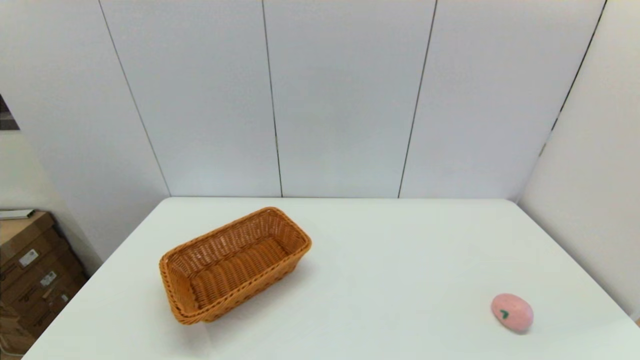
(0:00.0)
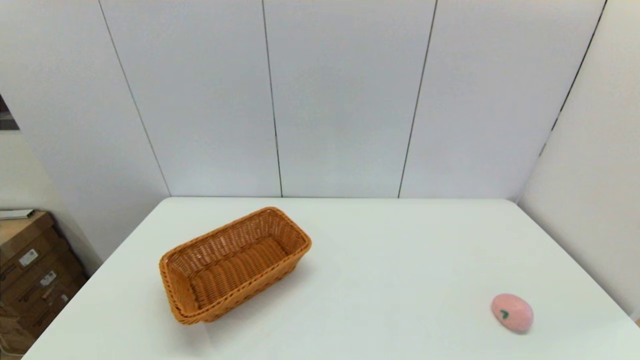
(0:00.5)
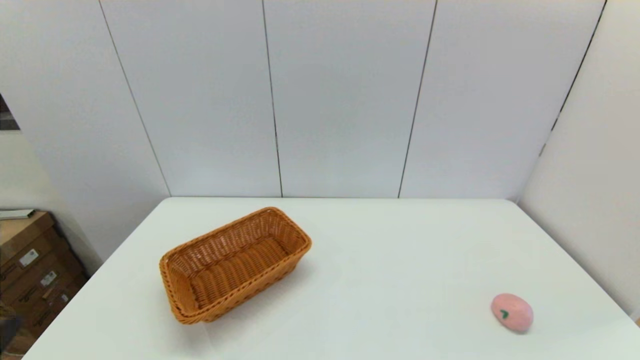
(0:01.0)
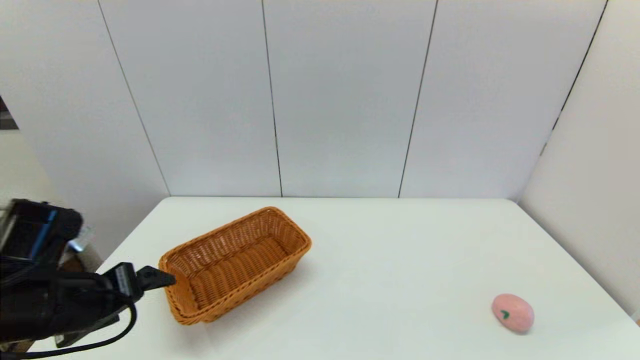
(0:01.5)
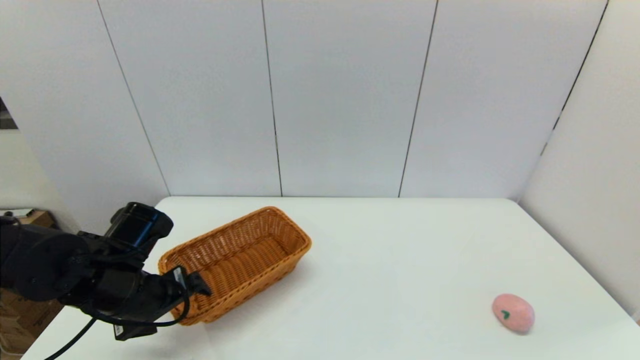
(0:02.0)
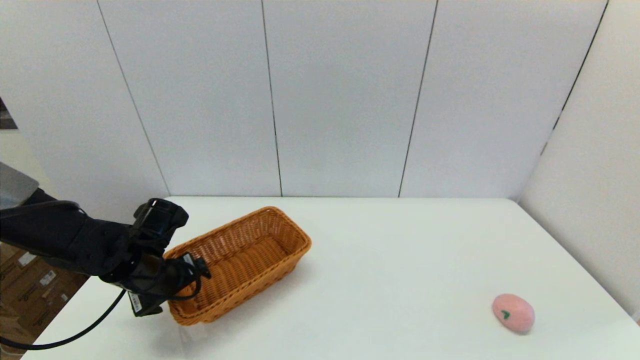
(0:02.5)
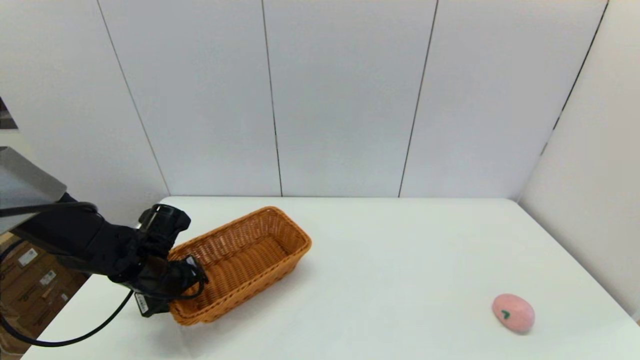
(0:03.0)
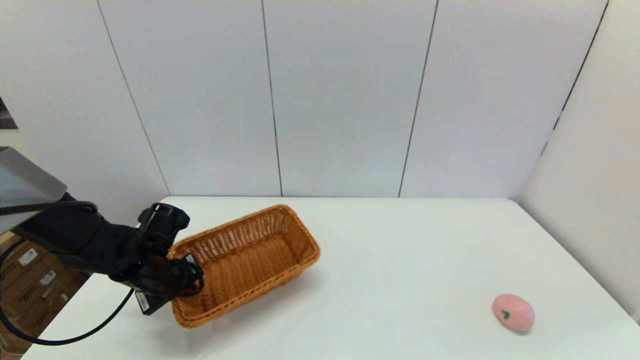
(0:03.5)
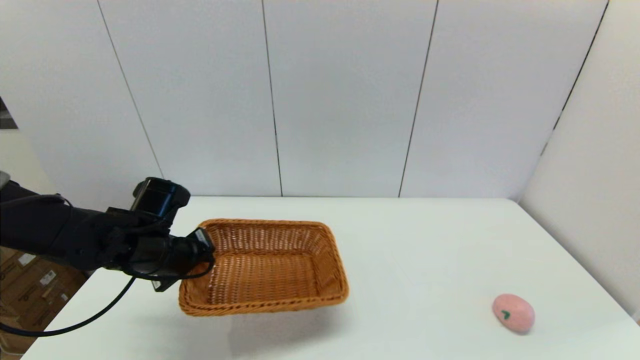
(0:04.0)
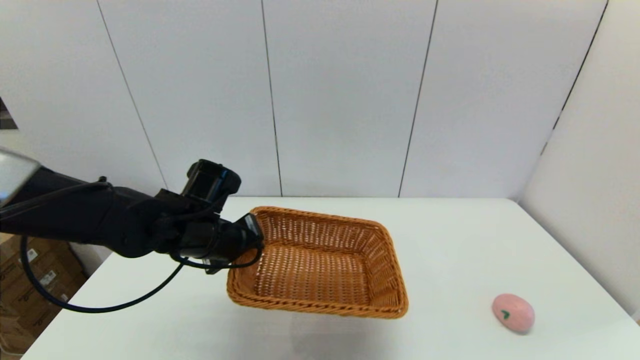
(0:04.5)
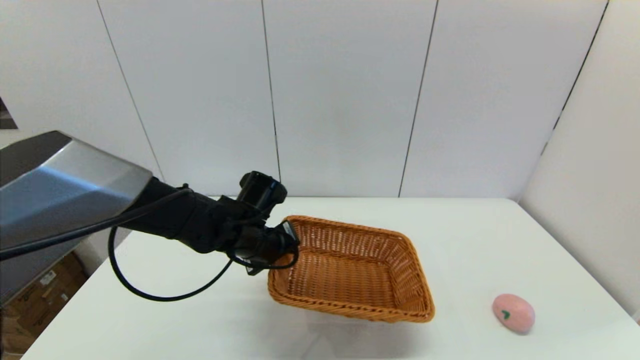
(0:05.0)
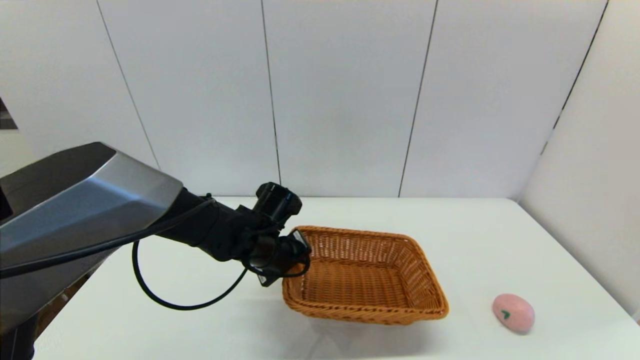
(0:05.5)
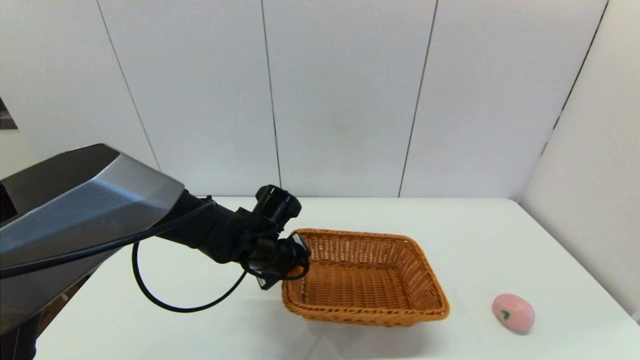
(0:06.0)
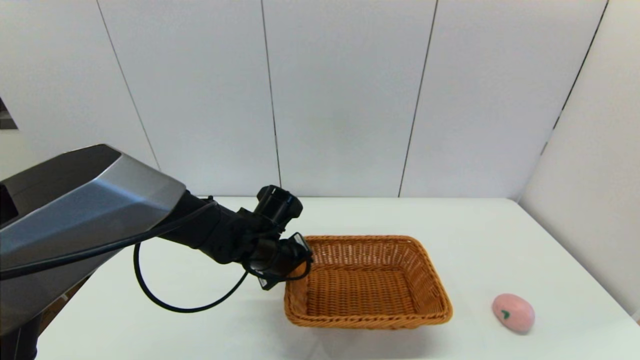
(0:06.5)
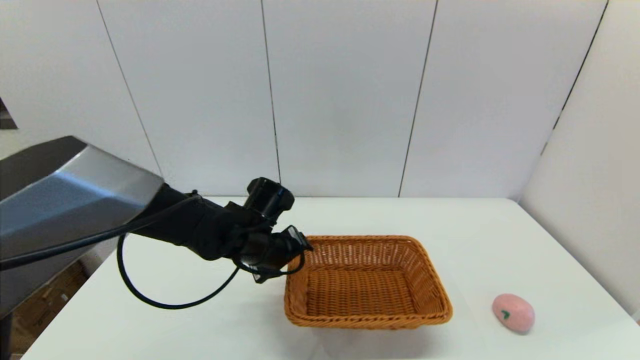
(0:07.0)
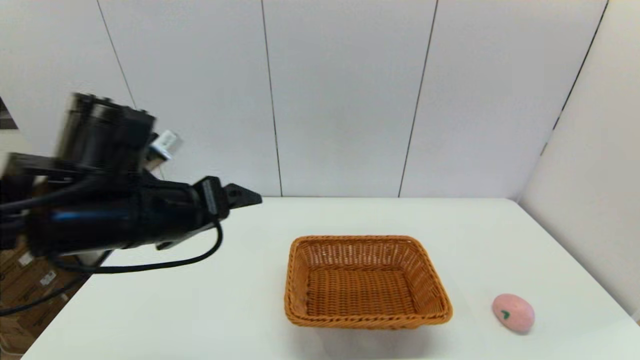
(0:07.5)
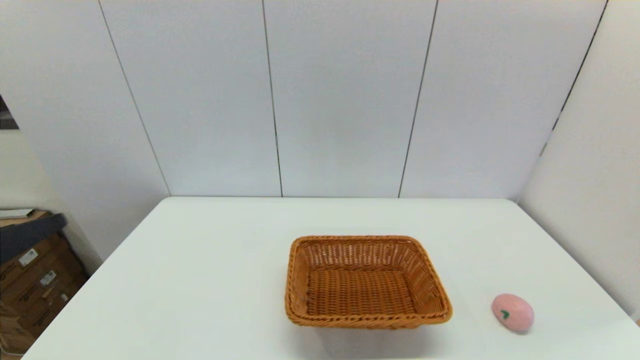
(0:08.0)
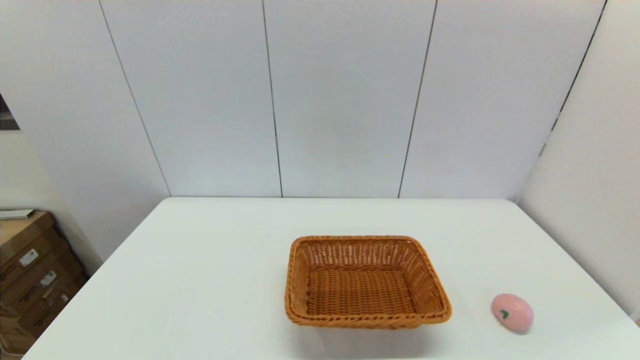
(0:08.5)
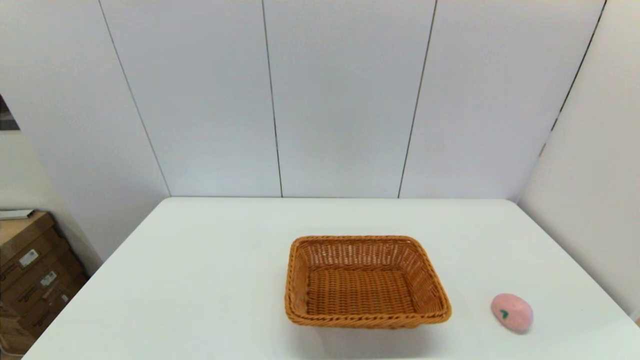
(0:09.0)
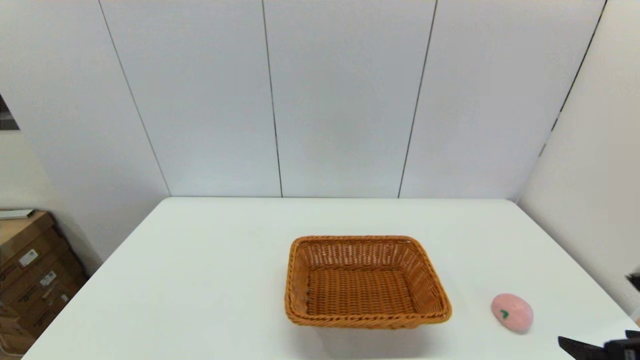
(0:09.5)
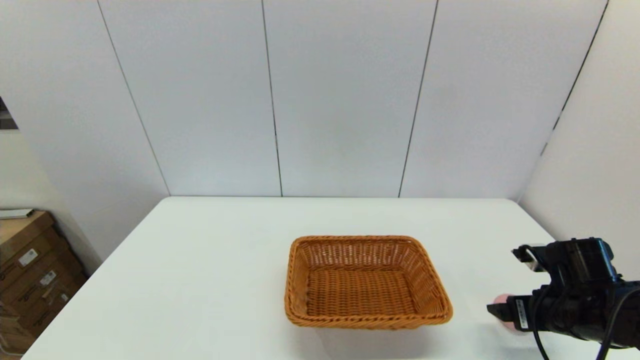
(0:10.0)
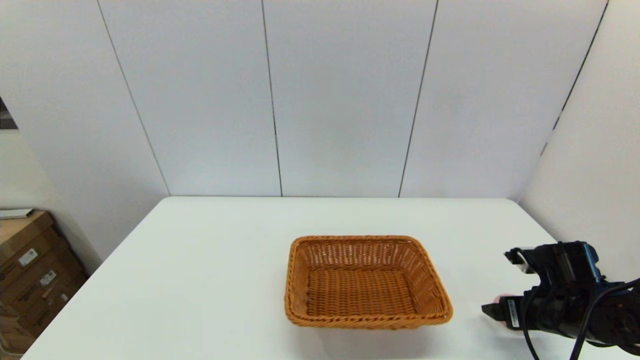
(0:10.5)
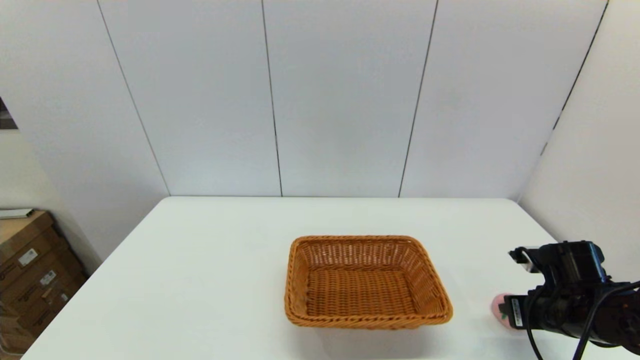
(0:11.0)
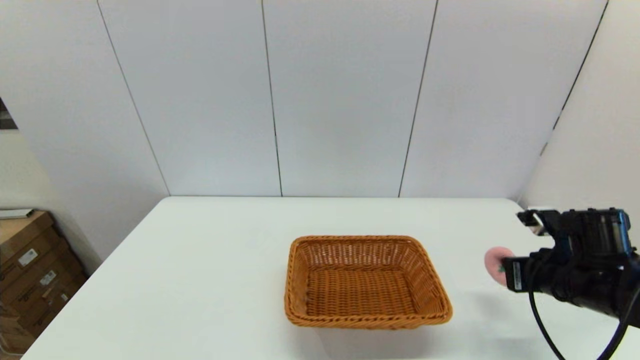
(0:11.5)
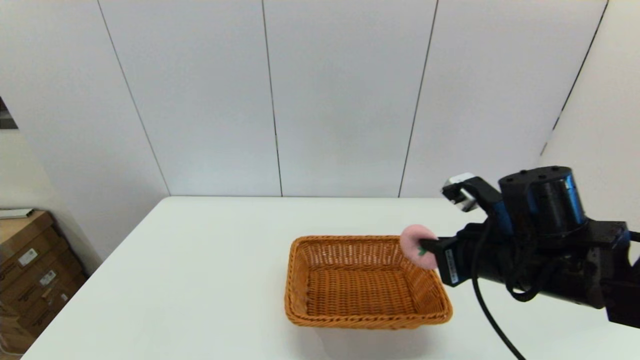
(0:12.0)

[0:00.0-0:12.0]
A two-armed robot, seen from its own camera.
Step, 0:00.0 to 0:03.5: Grasp the light basket with the left gripper.
Step, 0:04.0 to 0:06.5: Place the light basket on the middle of the table with the left gripper.
Step, 0:07.0 to 0:11.0: Grasp the peach with the right gripper.
0:00.0 to 0:02.0: The left gripper is displaced forward by some 25 cm.
0:02.0 to 0:04.0: The left gripper goes some 5 cm forward, and closes.
0:04.0 to 0:06.0: The left gripper is displaced to the right by roughly 15 cm.
0:06.0 to 0:08.0: The left gripper heads backward, to the left and upward, covering some 40 cm, and opens.
0:08.0 to 0:10.0: The right gripper heads forward, covering some 25 cm.
0:10.0 to 0:12.0: The right gripper travels to the left and upward by approximately 20 cm, and closes up.

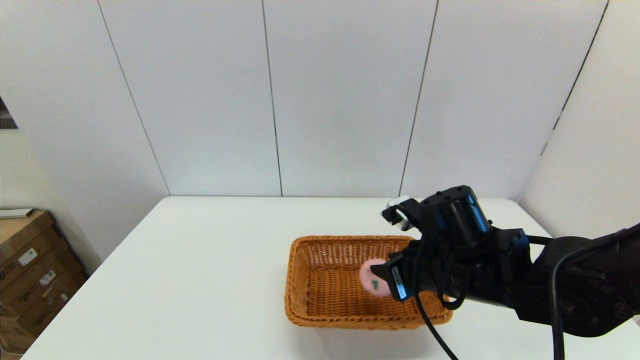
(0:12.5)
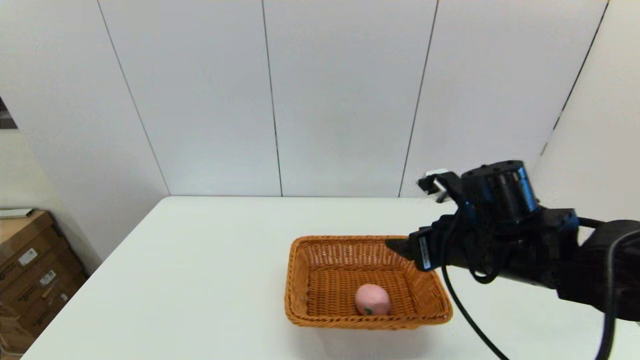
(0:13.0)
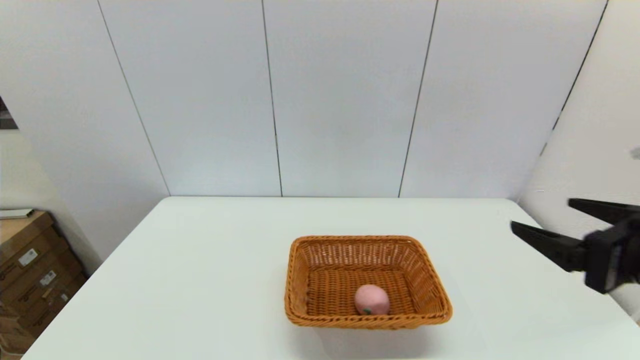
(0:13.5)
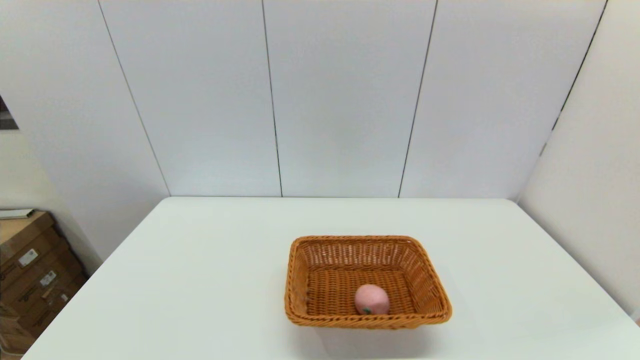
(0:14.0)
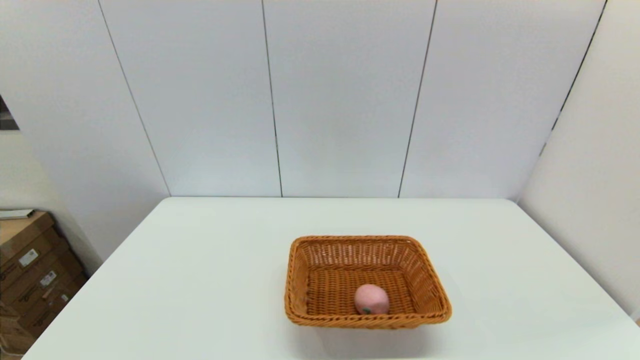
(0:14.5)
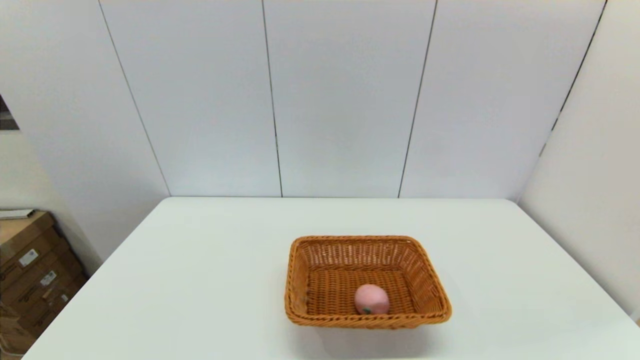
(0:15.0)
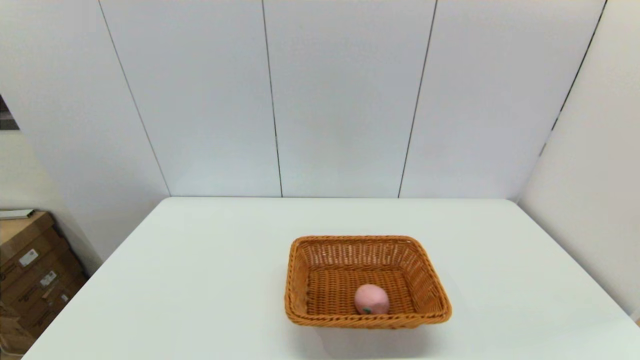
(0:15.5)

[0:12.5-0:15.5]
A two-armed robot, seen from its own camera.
0:12.5 to 0:14.0: The right gripper heads backward and to the right, covering roughly 30 cm, and opens.

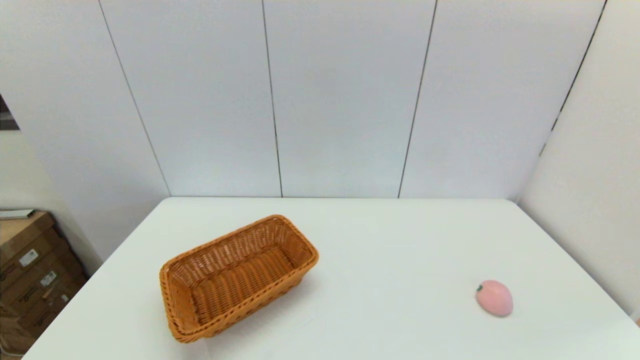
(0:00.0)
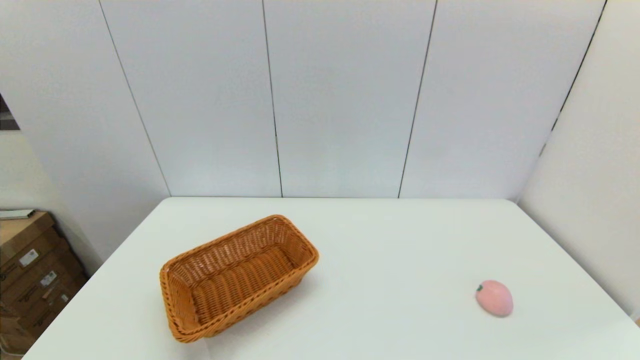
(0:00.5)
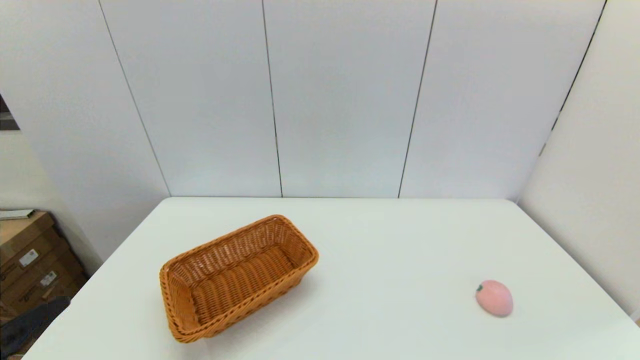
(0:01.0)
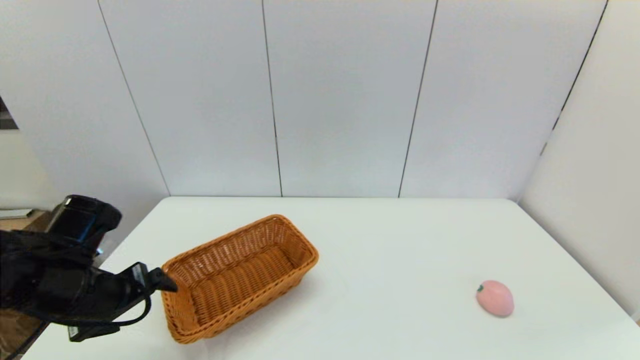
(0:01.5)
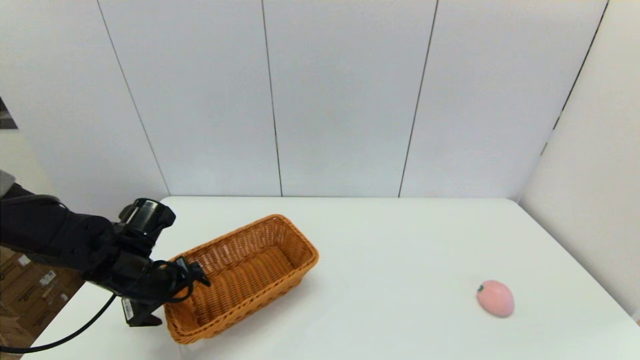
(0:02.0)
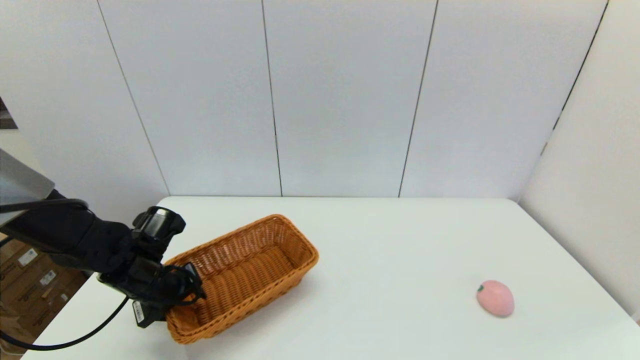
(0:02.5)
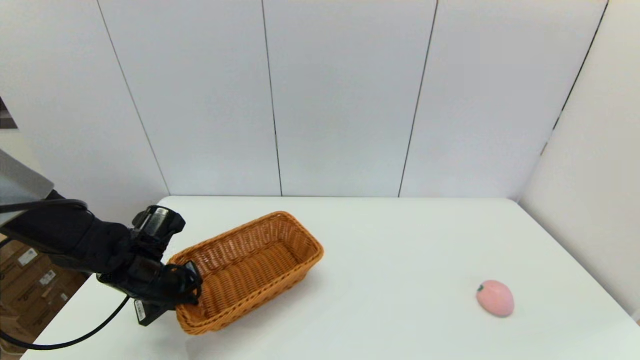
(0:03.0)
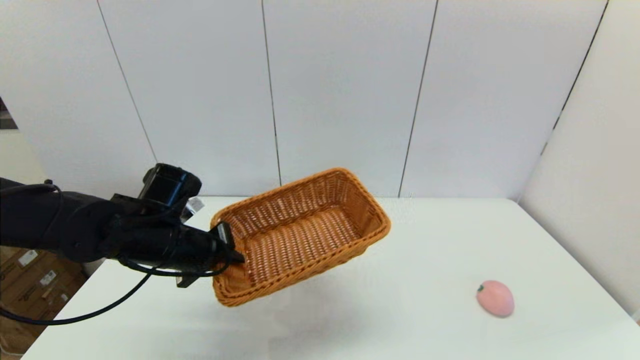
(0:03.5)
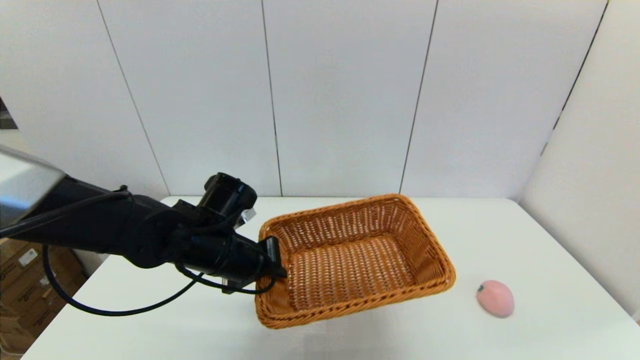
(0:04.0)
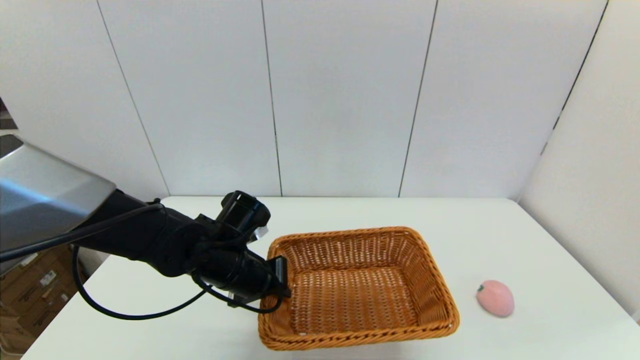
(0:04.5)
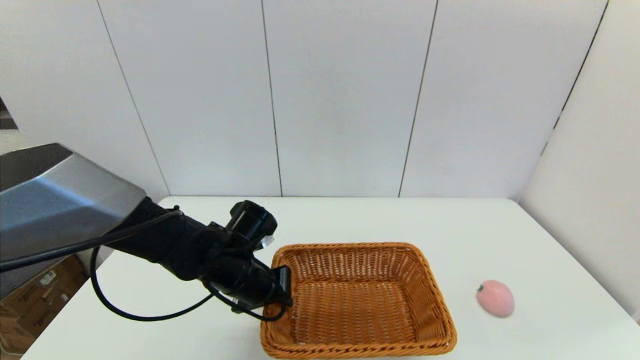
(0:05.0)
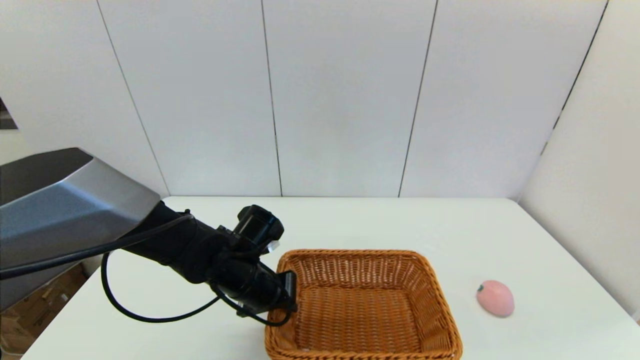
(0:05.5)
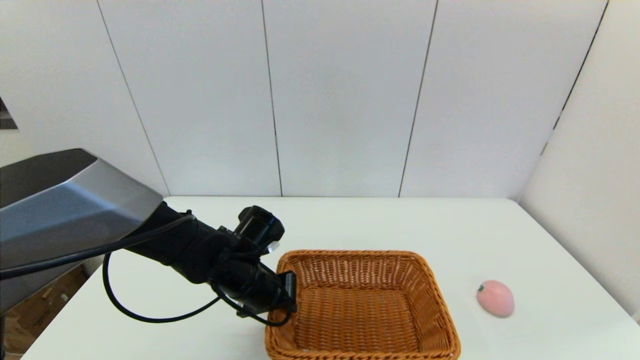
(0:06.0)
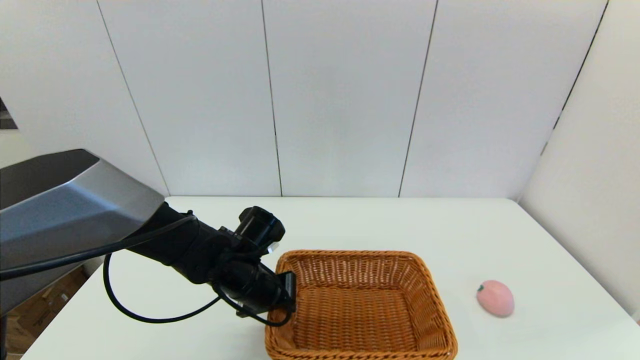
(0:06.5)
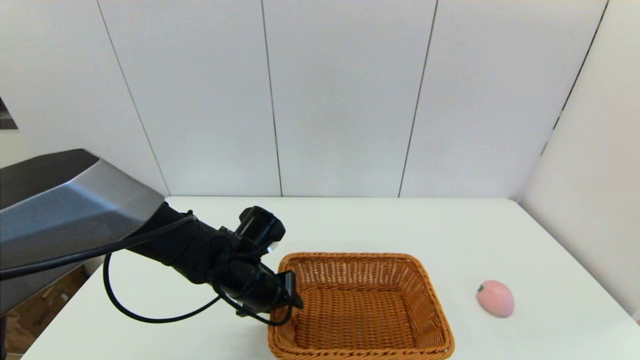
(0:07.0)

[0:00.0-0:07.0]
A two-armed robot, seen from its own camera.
Step, 0:00.0 to 0:02.5: Grasp the light basket with the left gripper.
Step, 0:03.5 to 0:07.0: Place the light basket on the middle of the table with the left gripper.
0:00.0 to 0:02.0: The left gripper travels forward by approximately 30 cm.
0:02.0 to 0:03.5: The left gripper heads to the right and upward, covering approximately 10 cm, and closes its fingers.
0:03.5 to 0:05.0: The left gripper heads to the right and downward, covering some 10 cm.
0:05.0 to 0:07.0: The left gripper opens.
